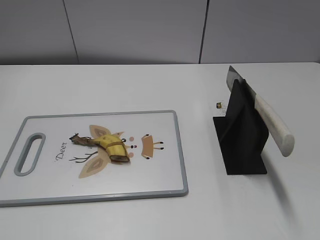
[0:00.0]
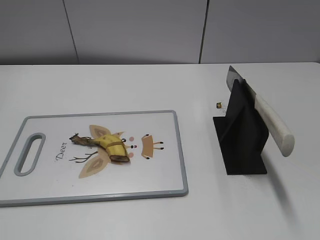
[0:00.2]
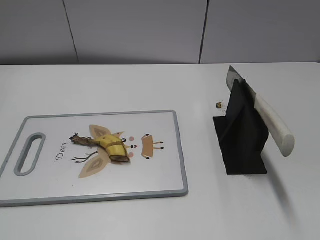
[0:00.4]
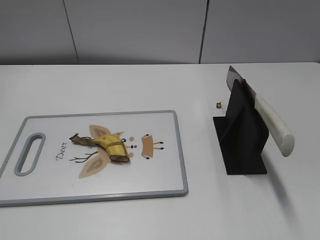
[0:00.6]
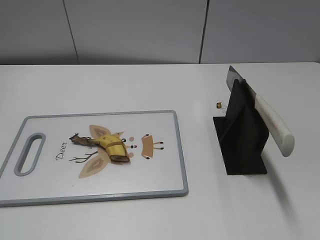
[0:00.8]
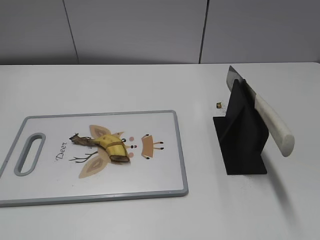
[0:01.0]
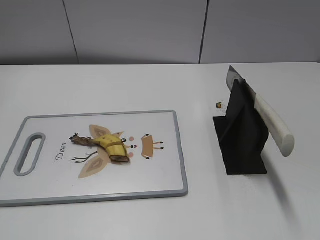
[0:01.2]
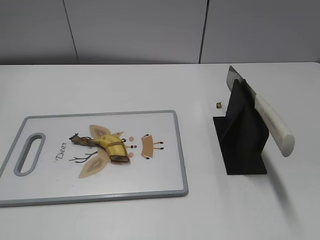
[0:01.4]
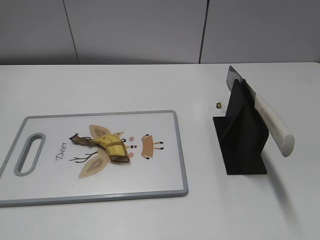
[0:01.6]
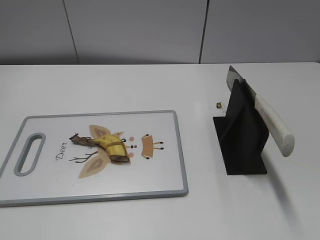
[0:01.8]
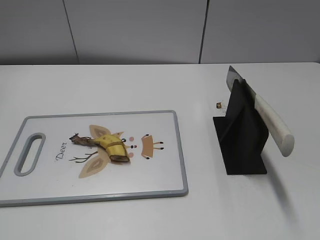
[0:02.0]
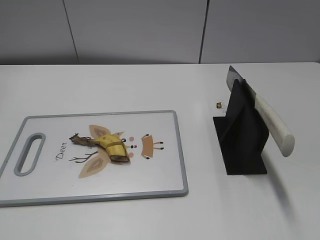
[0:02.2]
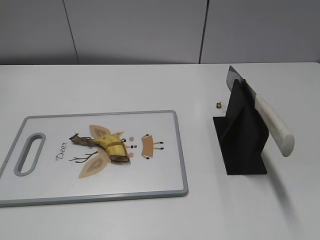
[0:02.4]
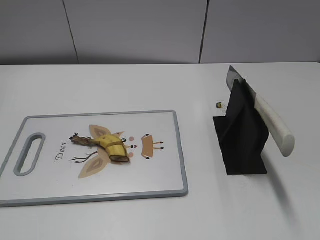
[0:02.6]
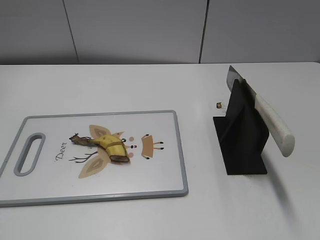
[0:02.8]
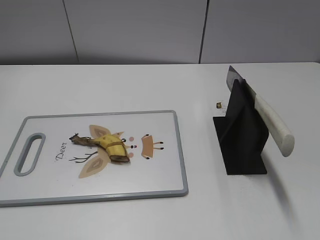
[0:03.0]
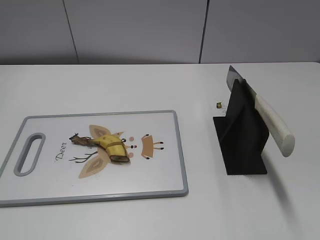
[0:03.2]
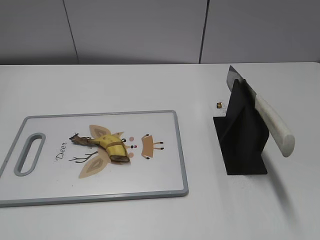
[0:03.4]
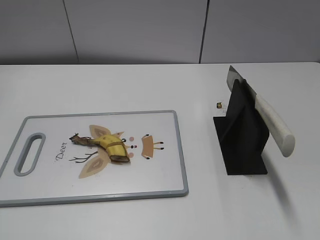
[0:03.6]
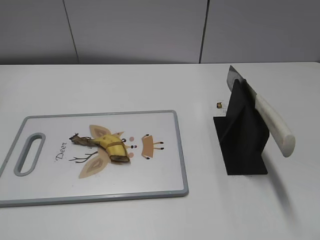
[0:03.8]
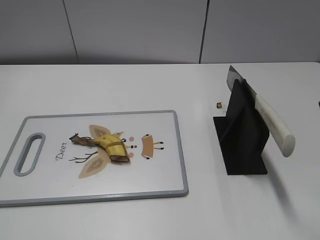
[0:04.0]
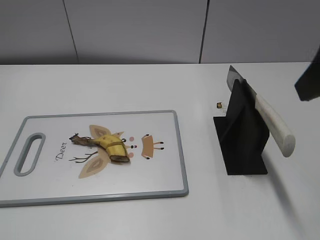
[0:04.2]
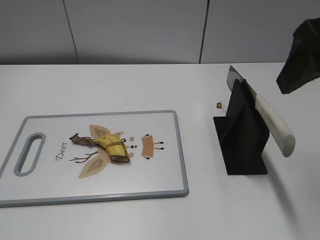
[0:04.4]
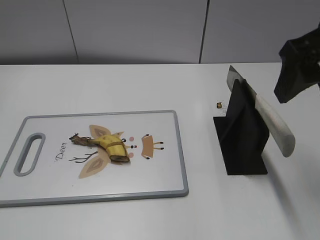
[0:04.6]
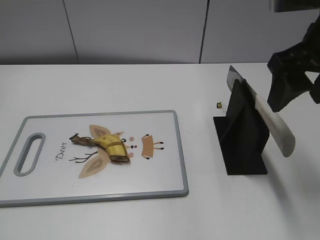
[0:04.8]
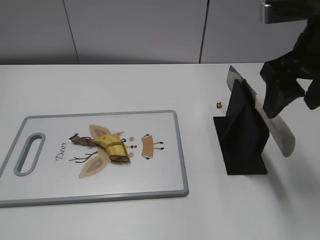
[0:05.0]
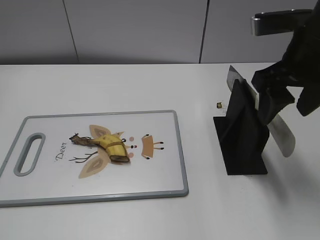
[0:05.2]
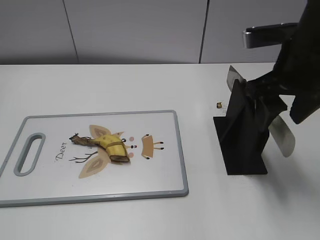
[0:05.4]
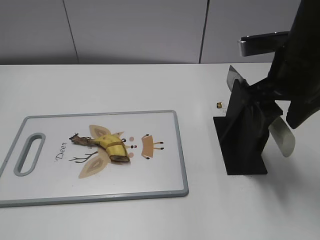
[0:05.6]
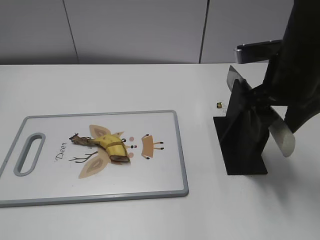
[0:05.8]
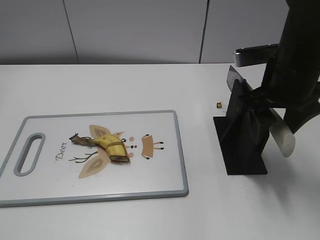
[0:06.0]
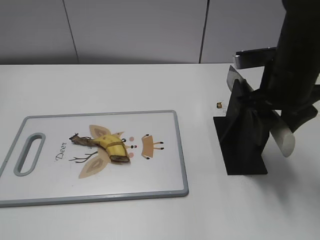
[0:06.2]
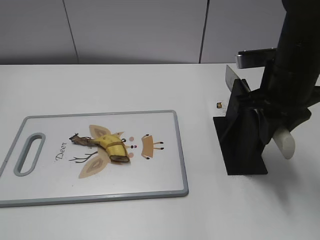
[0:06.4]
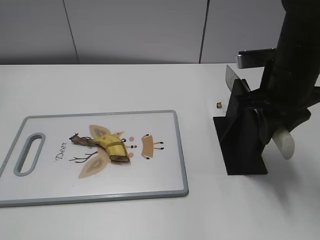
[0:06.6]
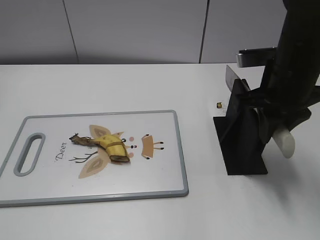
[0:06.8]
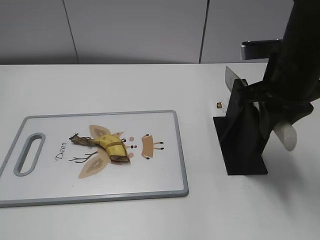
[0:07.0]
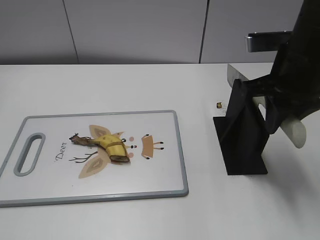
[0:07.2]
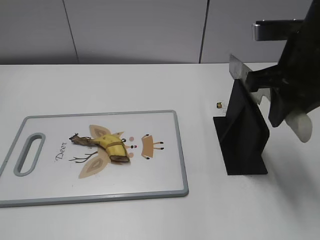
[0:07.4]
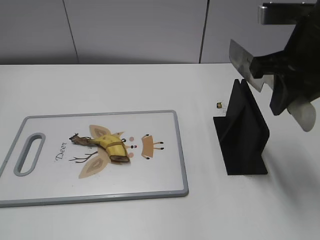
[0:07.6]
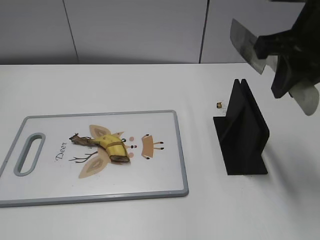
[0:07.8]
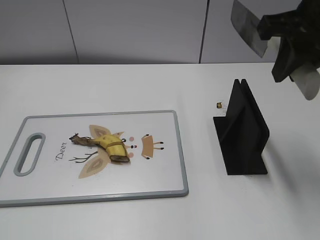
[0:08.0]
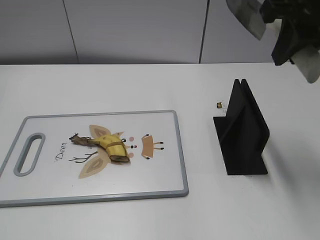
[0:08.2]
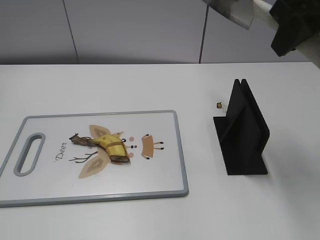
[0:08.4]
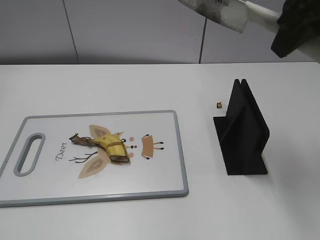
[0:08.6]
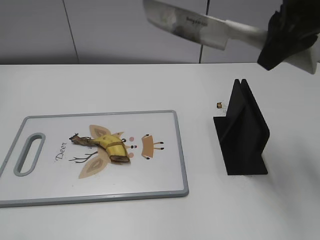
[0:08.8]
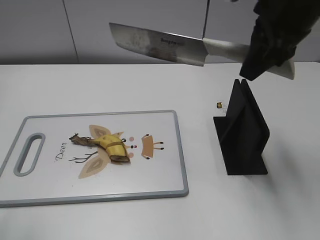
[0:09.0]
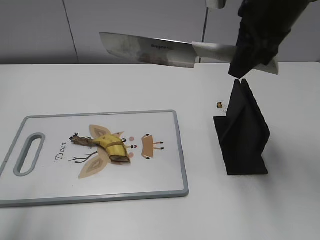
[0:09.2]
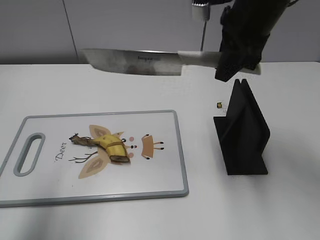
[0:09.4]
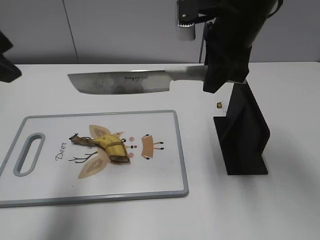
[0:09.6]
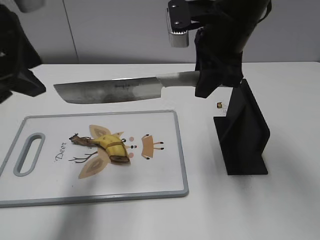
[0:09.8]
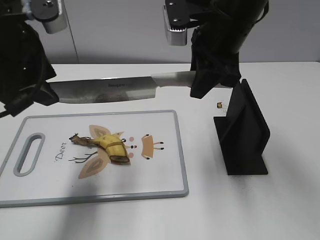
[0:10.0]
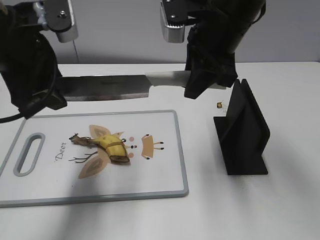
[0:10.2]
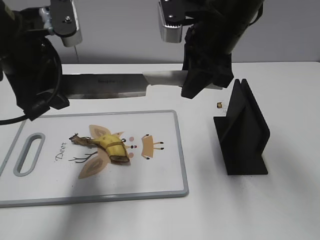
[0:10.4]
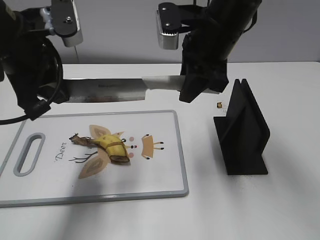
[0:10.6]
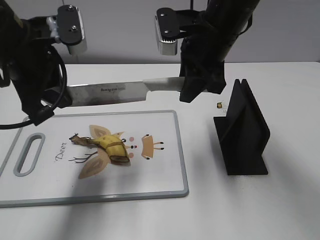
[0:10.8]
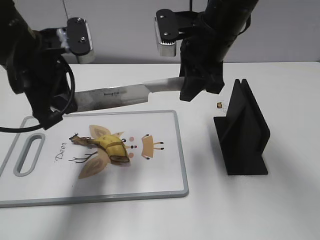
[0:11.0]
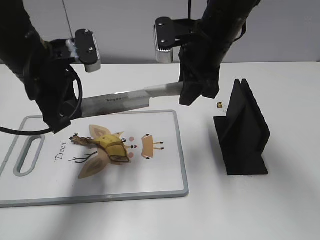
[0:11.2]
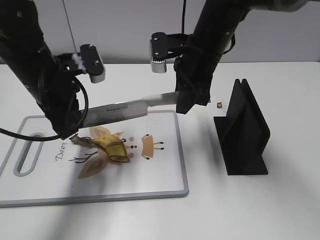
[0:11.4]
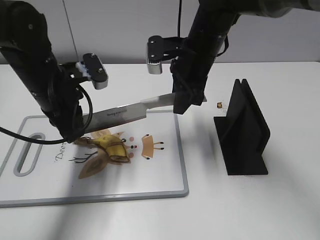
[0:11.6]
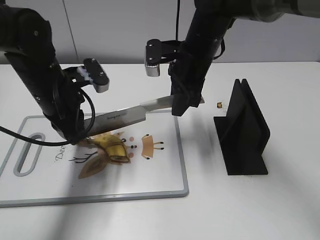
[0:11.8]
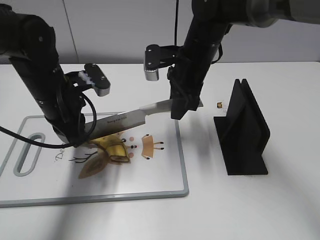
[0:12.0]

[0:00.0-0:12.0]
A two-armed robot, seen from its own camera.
Task of the whole recording: cut banana.
Step, 0:00.0 to 0:08.4: Grab the knife handle with your right hand.
0:03.0 to 0:04.4: The right gripper moves forward, approximately 20 cm.
0:04.4 to 0:06.0: The right gripper heads downward and forward, covering approximately 15 cm.
0:06.0 to 0:07.6: The right gripper moves upward, approximately 5 cm, and closes up.
0:07.6 to 0:09.0: The right gripper changes place by some 5 cm. The left gripper is displaced forward and upward by about 10 cm.
0:09.0 to 0:10.4: The right gripper goes some 10 cm to the left and downward. The left gripper travels forward and to the right by some 20 cm.
0:10.4 to 0:12.0: The right gripper heads downward and forward, covering approximately 10 cm. The left gripper goes some 10 cm downward, and closes.

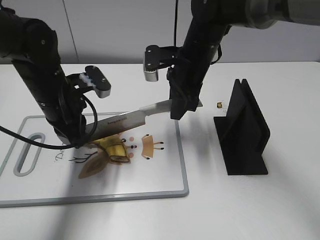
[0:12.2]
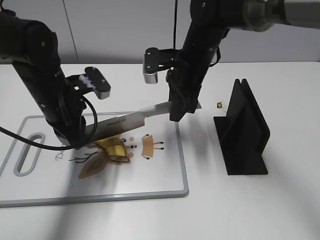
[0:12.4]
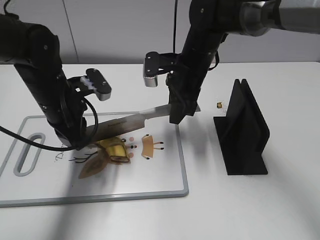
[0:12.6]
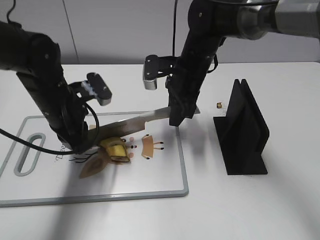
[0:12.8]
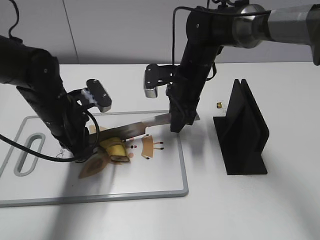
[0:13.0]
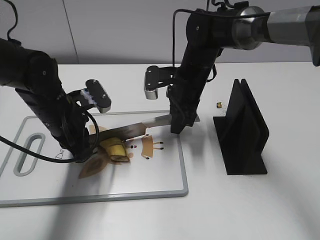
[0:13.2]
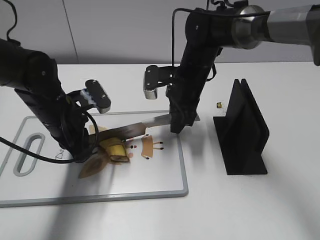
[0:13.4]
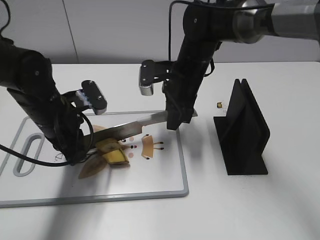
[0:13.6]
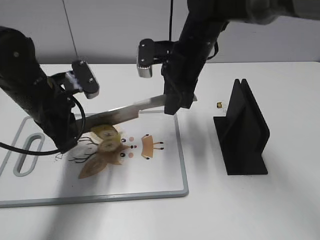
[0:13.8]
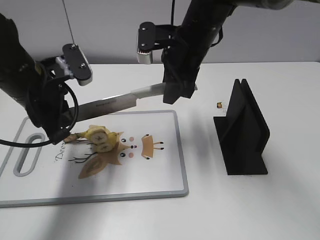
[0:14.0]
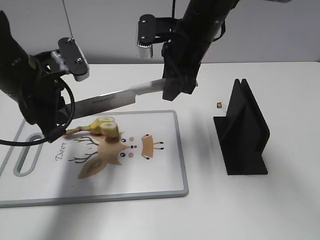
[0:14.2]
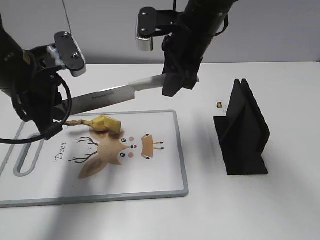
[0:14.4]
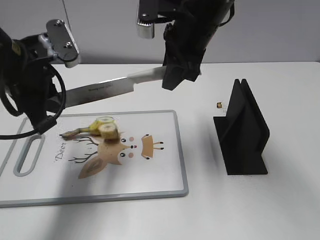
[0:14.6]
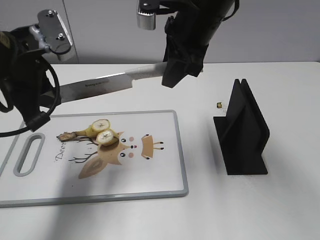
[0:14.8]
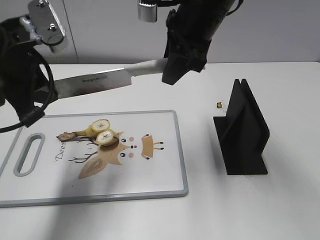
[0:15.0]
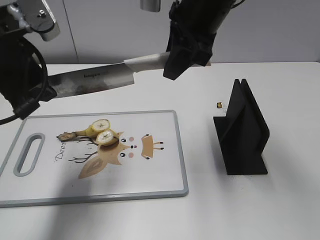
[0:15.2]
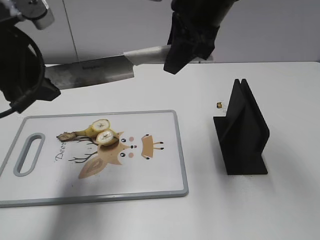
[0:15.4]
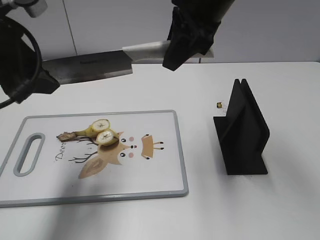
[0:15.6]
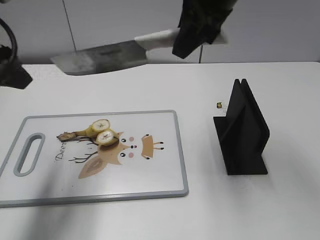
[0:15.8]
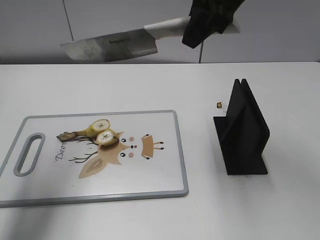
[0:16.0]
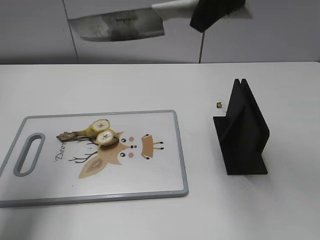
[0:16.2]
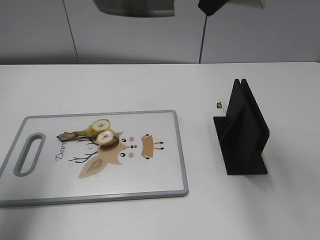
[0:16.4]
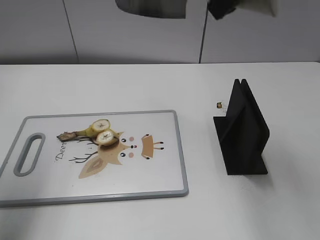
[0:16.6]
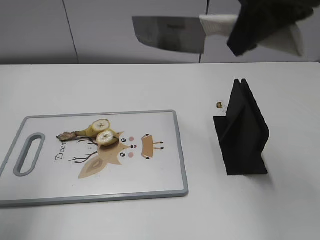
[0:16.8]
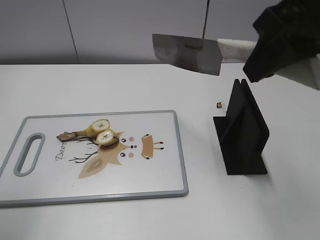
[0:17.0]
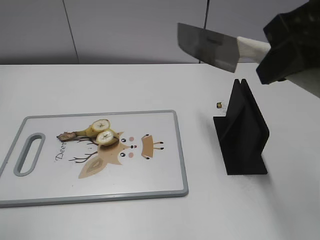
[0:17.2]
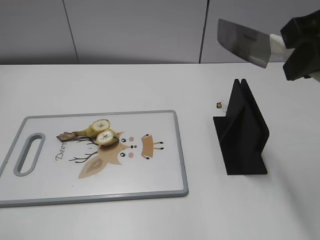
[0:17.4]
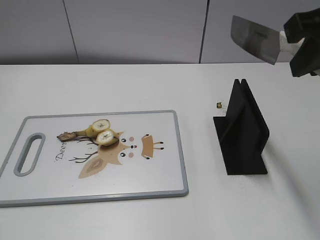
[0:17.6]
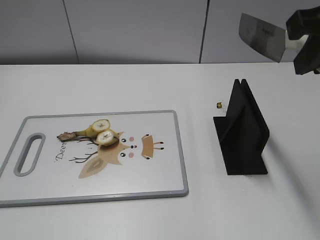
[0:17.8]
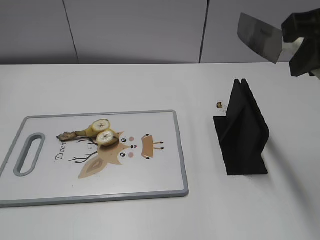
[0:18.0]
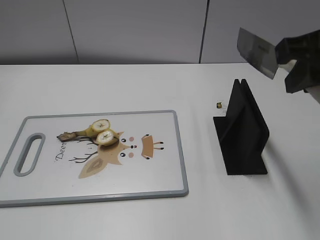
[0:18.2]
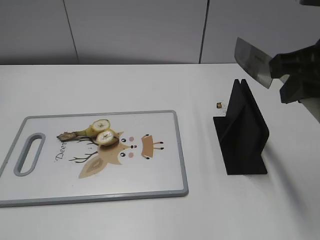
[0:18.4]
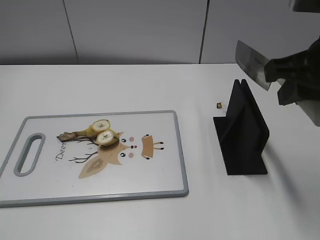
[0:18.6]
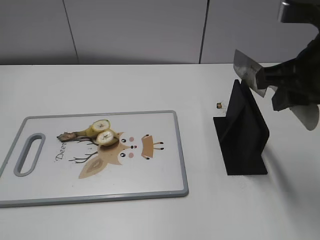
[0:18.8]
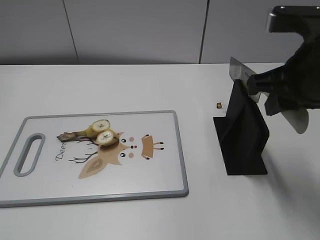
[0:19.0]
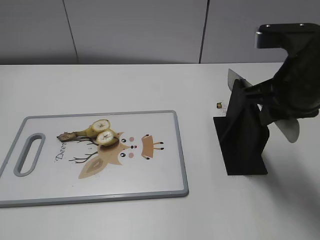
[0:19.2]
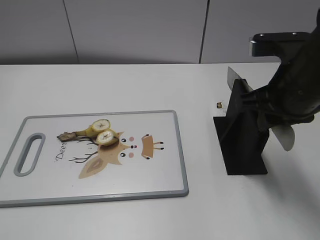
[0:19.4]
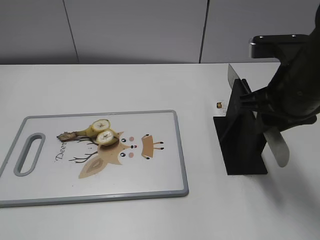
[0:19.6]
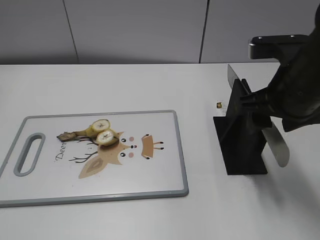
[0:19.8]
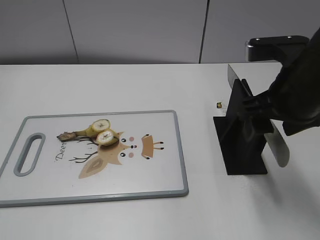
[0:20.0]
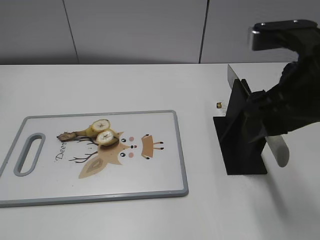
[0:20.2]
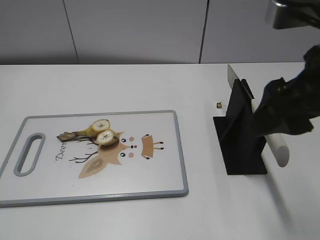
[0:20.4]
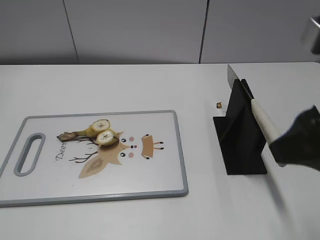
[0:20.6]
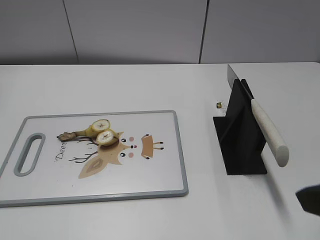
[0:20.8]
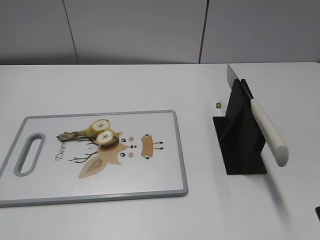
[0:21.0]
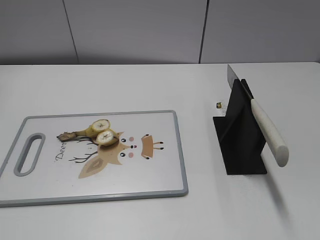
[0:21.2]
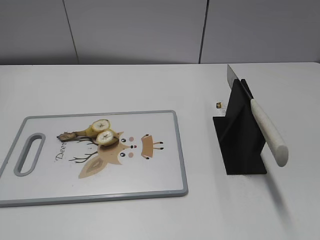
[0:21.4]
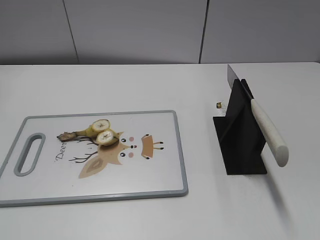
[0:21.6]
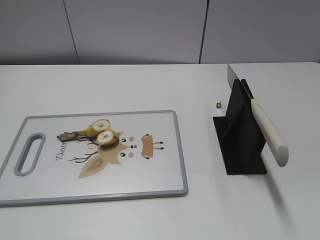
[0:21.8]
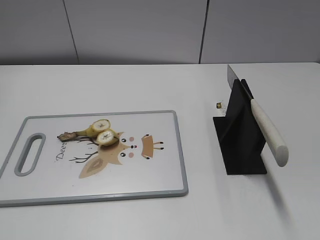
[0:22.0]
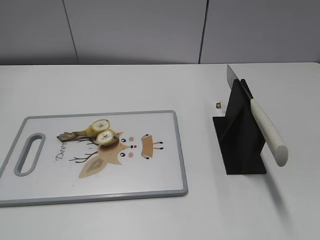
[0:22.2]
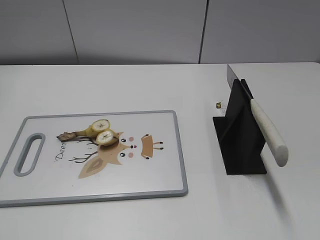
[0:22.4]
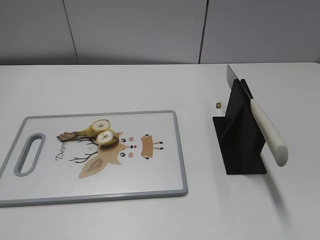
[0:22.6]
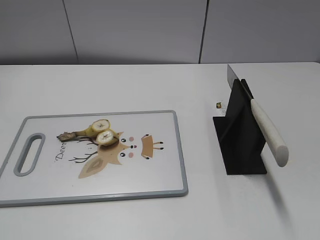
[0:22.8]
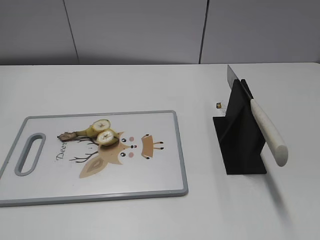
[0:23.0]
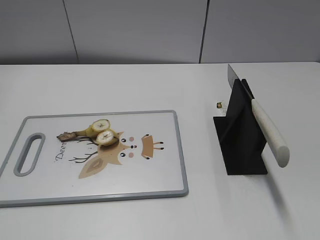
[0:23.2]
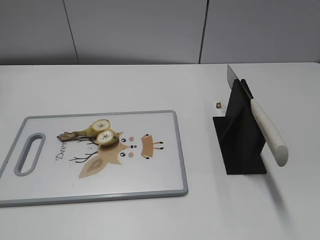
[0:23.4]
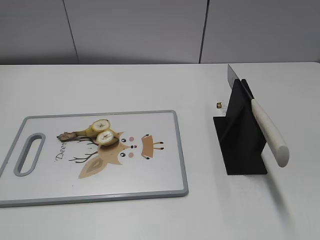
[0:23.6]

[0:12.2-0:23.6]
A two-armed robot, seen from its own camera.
Task of the whole recording: cut banana.
0:13.6 to 0:15.0: The left gripper shifts roughly 15 cm upward.
0:15.0 to 0:16.4: The left gripper goes about 15 cm to the left and upward, and opens its fingers.
0:16.4 to 0:17.8: The left gripper moves backward, approximately 20 cm.
0:17.8 to 0:19.4: The grippers stay close to where they were, moving slightly.
0:19.4 to 0:23.6: The two grippers keep their place.
